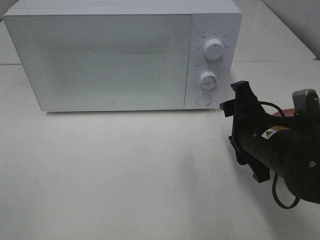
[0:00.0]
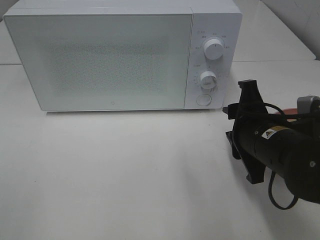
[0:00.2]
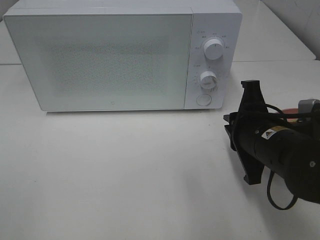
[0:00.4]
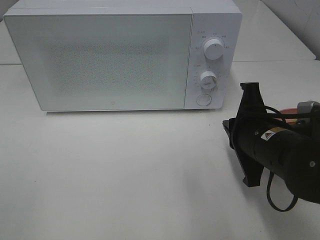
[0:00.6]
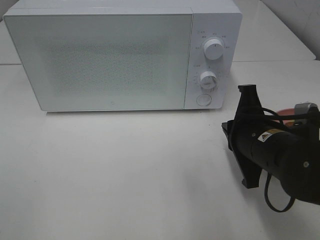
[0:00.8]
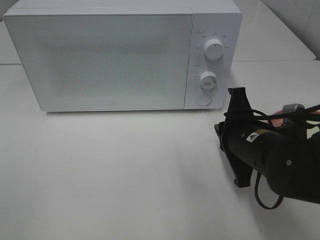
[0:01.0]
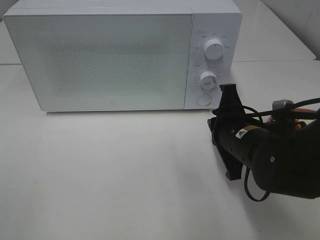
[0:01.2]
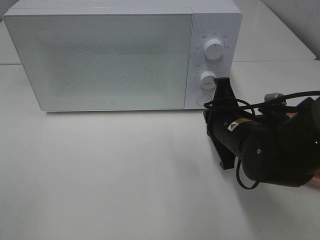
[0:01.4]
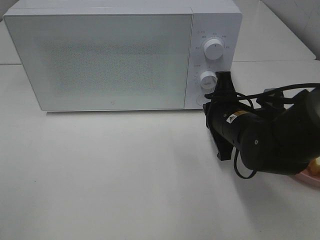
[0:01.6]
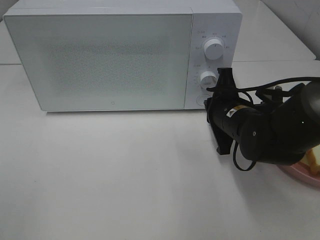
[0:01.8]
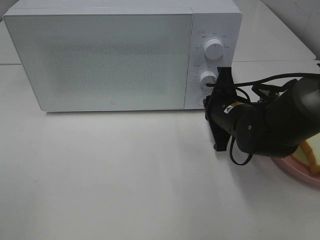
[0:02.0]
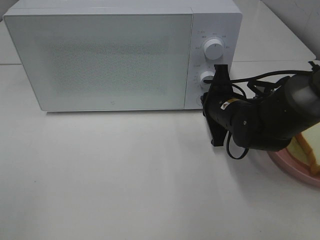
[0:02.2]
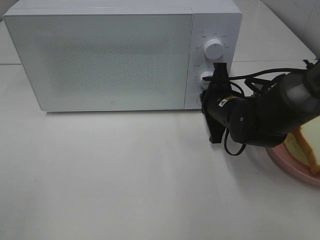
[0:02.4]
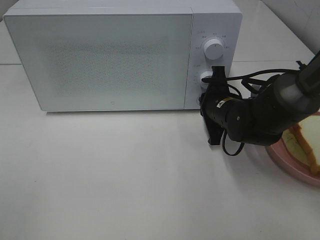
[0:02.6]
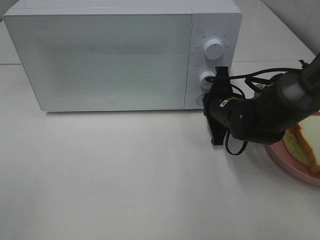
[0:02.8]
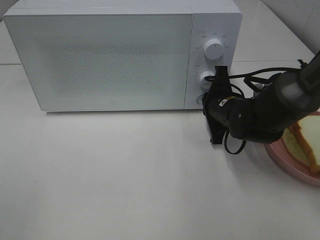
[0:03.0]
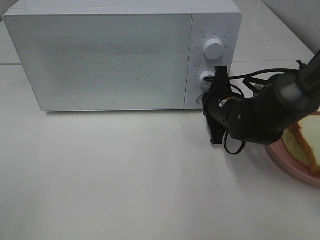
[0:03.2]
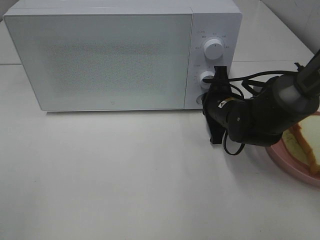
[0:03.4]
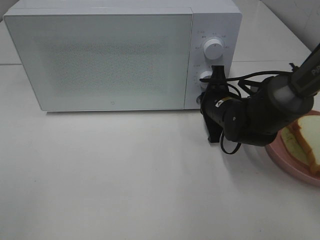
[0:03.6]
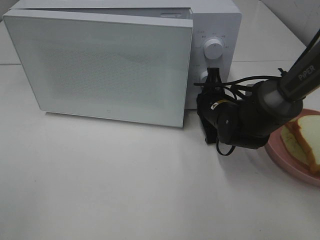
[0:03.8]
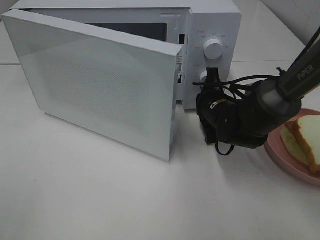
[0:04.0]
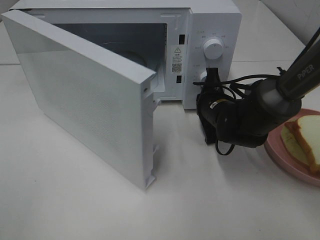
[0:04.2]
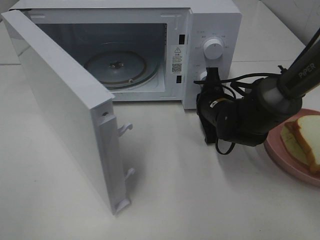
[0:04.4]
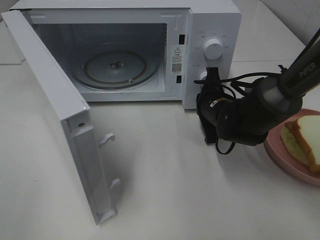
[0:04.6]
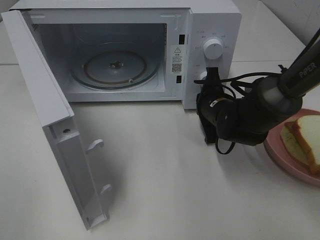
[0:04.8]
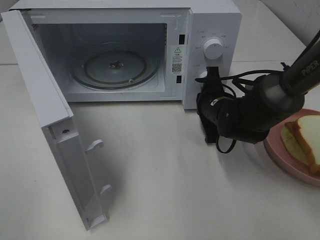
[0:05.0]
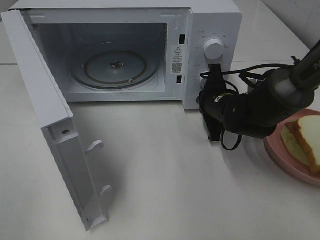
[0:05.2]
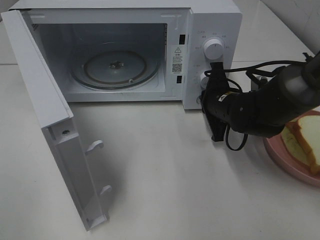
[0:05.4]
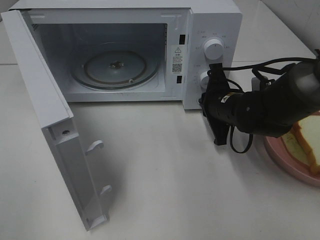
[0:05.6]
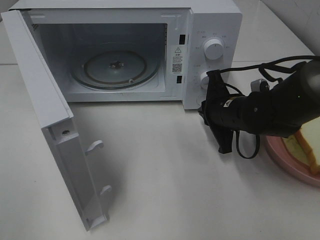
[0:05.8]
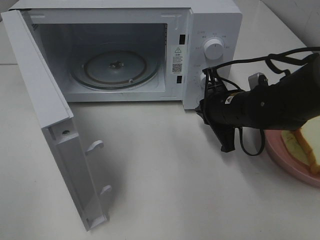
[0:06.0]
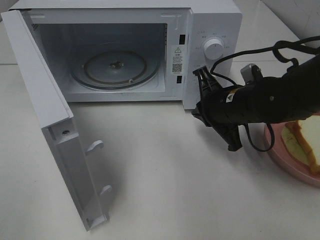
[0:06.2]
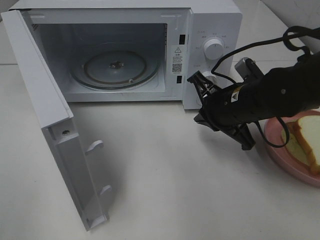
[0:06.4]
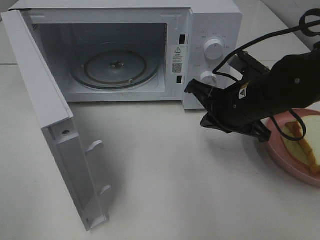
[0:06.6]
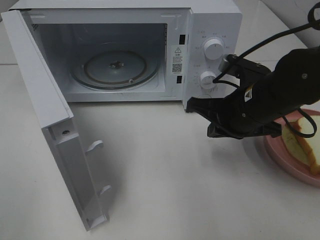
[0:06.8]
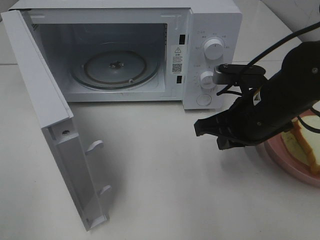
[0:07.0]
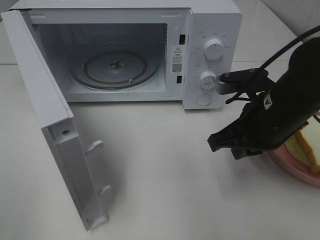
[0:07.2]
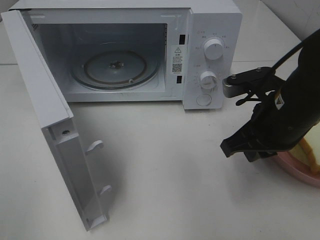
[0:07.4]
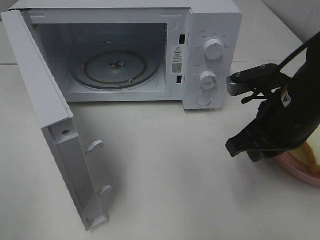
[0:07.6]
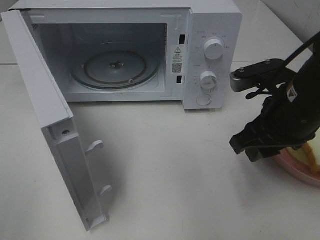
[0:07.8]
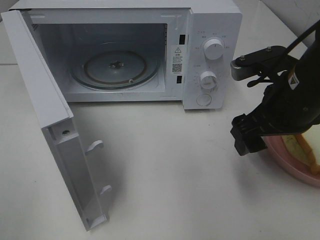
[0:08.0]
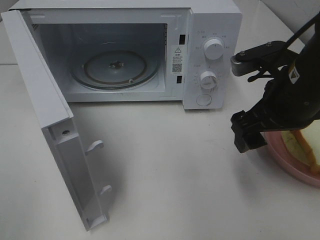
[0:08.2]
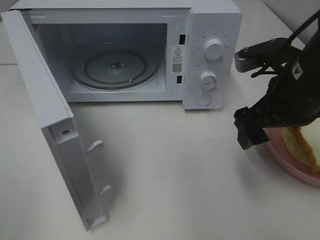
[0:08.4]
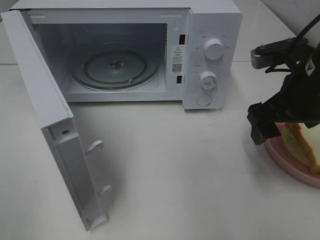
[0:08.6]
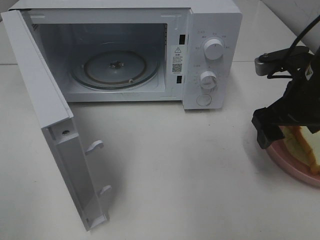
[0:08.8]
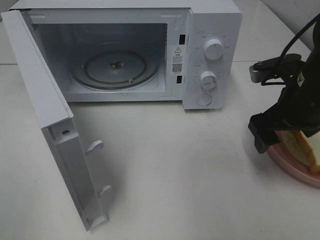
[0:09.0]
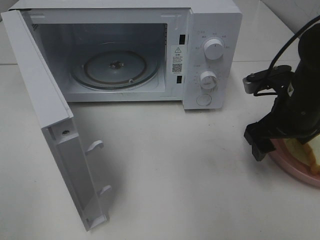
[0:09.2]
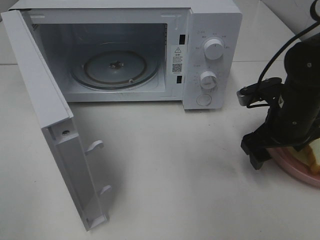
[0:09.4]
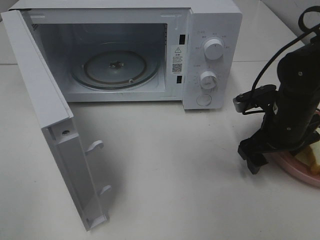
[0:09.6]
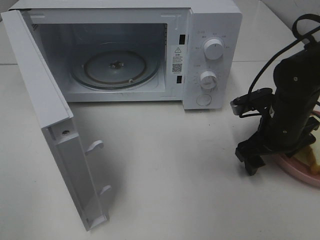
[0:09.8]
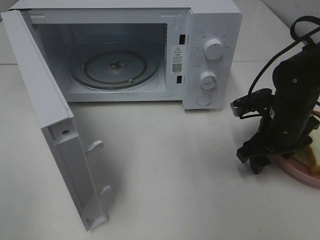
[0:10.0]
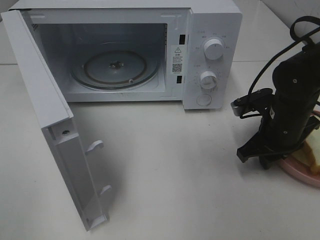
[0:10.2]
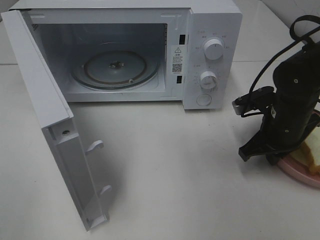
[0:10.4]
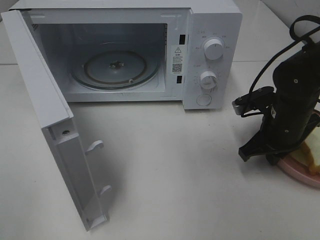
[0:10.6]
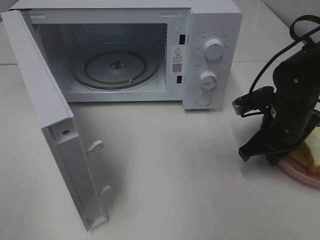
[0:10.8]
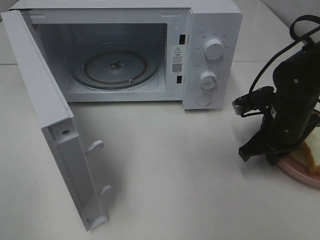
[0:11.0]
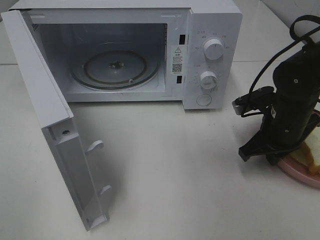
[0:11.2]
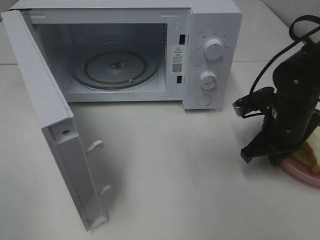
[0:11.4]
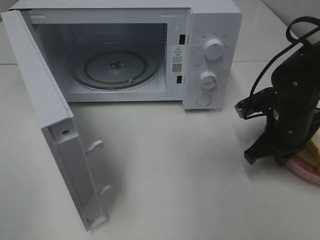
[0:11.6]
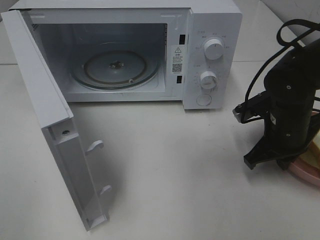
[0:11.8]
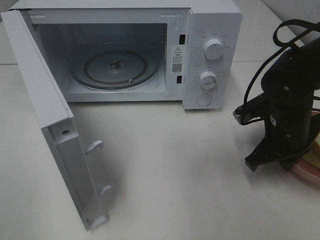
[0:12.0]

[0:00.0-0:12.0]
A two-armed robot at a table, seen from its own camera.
Task of the whole recording: Heat Sandwich.
Step, 0:00.0 to 0:05.4: Right hand: press the switch.
Step, 0:05.6 to 0:10.8: Right hand: grab the plate with the sandwich.
0:00.0 to 0:01.6: The right gripper heads forward, covering some 5 cm, and closes.
0:01.6 to 0:03.0: The right gripper is displaced forward by some 5 cm.
0:04.4 to 0:06.0: The right gripper moves about 5 cm.
0:06.0 to 0:07.6: The right gripper is displaced backward and upward by approximately 10 cm.
0:07.6 to 0:09.0: The right gripper shifts by some 5 cm, and opens its fingers.
0:09.0 to 0:10.4: The right gripper is displaced downward by about 5 cm, and closes.
0:10.4 to 0:12.0: The grippers stay close to where they were, moving slightly.

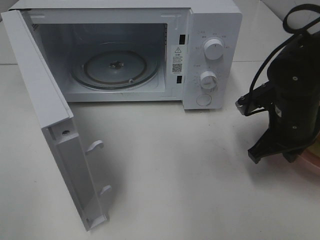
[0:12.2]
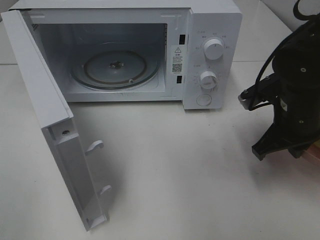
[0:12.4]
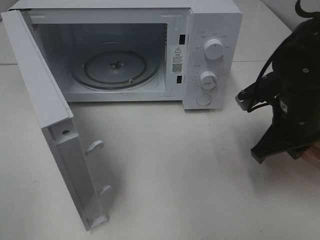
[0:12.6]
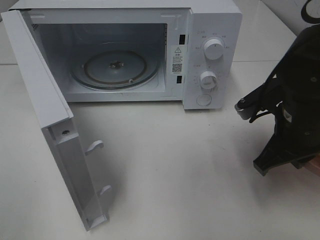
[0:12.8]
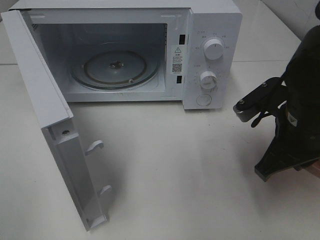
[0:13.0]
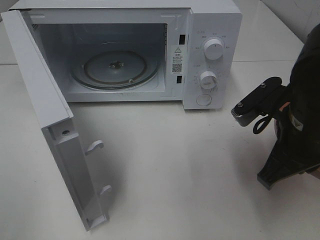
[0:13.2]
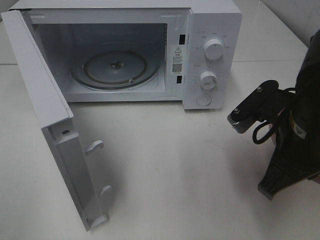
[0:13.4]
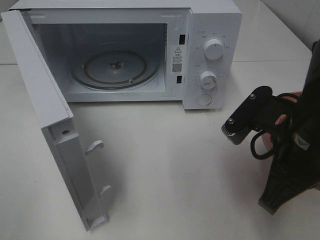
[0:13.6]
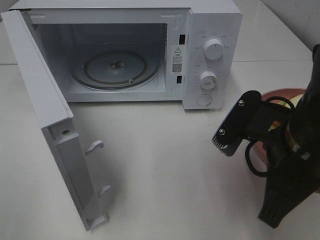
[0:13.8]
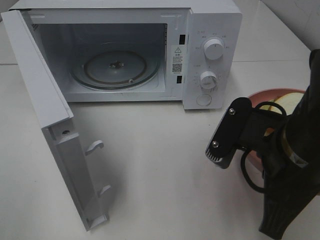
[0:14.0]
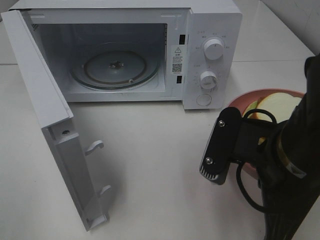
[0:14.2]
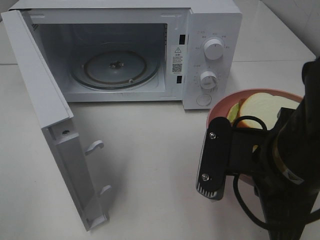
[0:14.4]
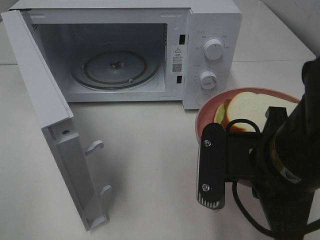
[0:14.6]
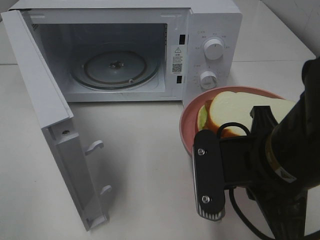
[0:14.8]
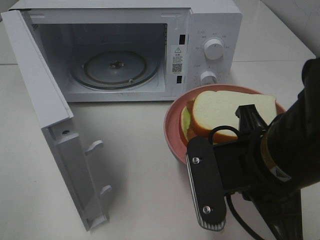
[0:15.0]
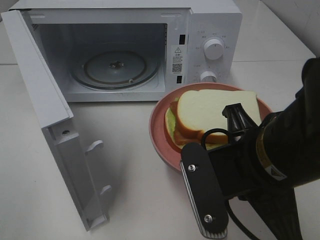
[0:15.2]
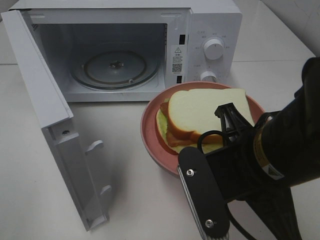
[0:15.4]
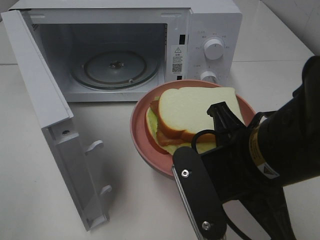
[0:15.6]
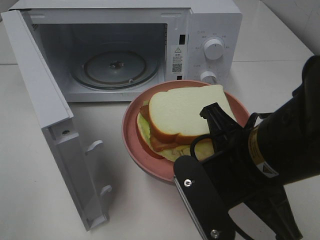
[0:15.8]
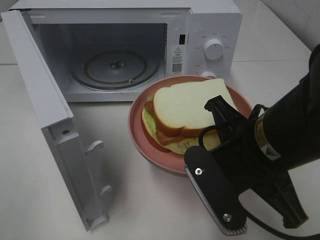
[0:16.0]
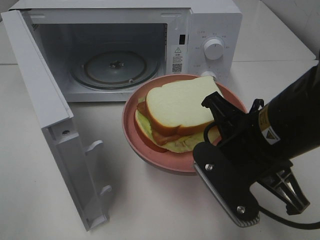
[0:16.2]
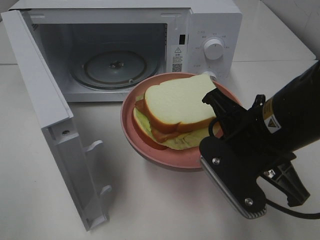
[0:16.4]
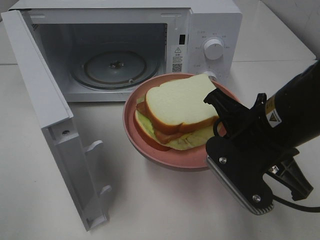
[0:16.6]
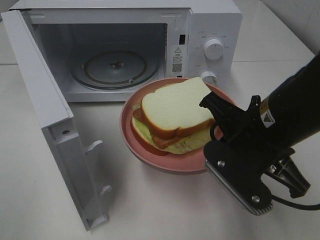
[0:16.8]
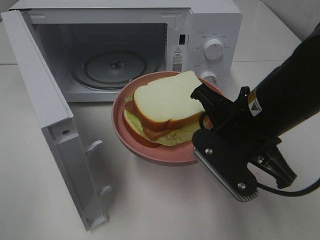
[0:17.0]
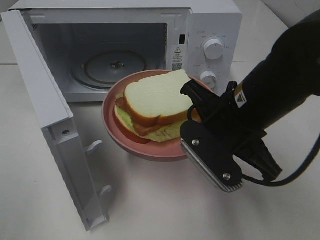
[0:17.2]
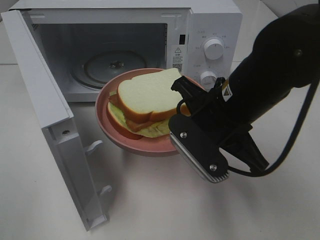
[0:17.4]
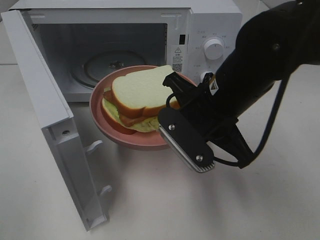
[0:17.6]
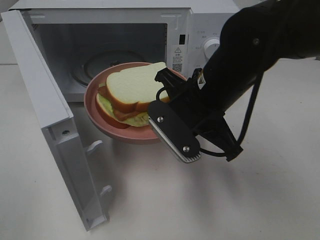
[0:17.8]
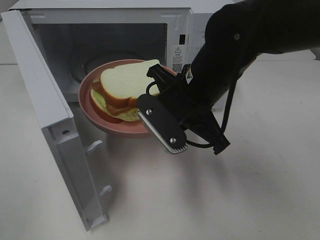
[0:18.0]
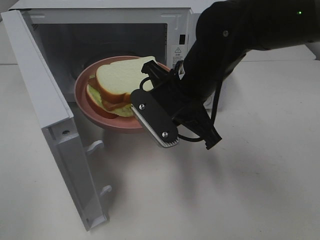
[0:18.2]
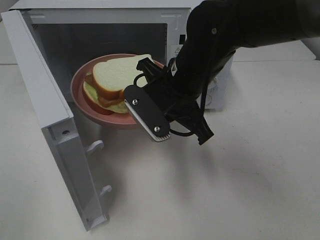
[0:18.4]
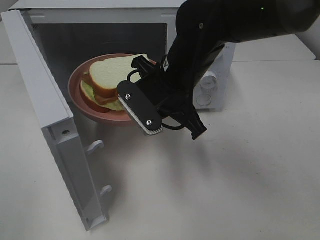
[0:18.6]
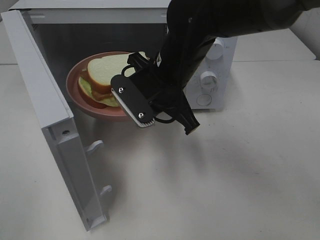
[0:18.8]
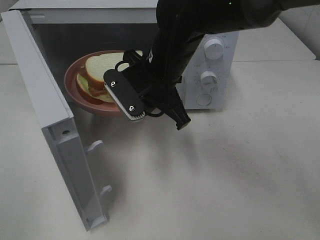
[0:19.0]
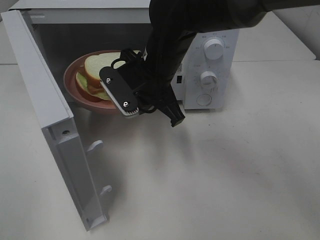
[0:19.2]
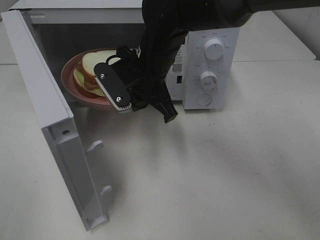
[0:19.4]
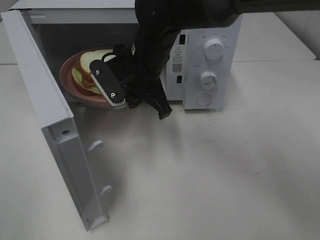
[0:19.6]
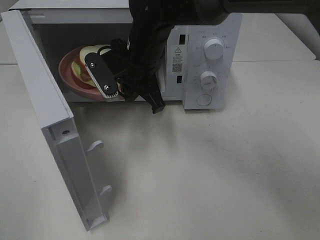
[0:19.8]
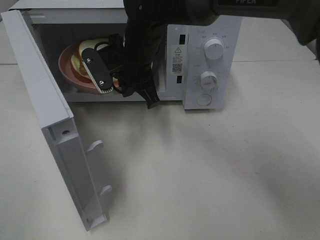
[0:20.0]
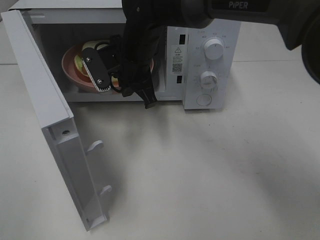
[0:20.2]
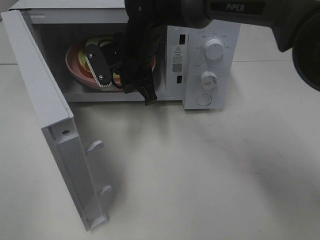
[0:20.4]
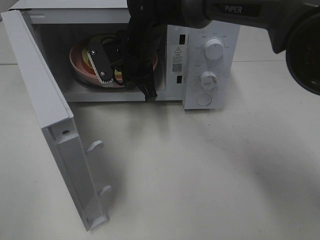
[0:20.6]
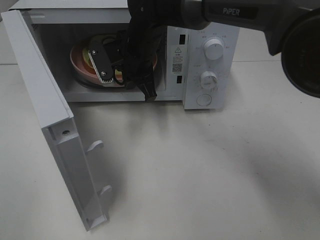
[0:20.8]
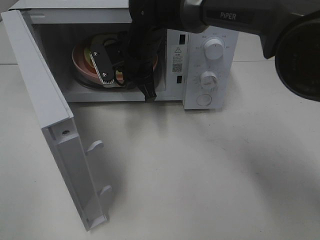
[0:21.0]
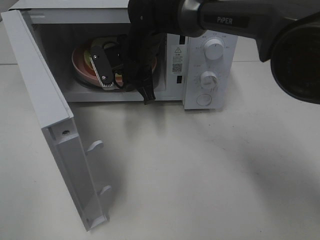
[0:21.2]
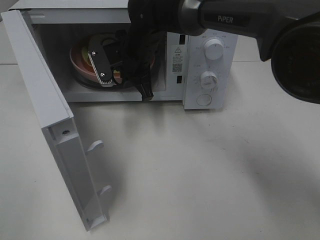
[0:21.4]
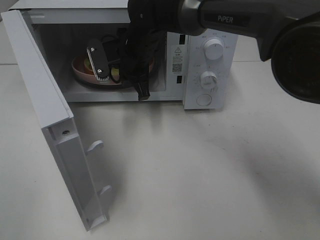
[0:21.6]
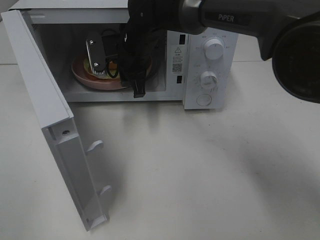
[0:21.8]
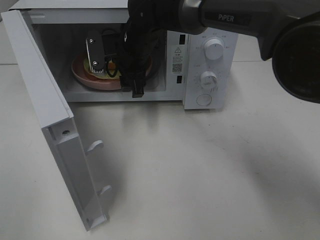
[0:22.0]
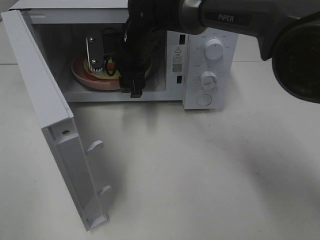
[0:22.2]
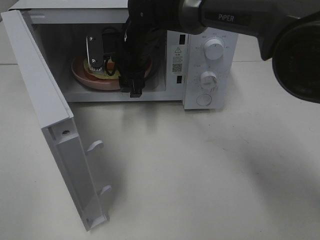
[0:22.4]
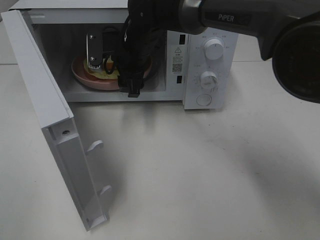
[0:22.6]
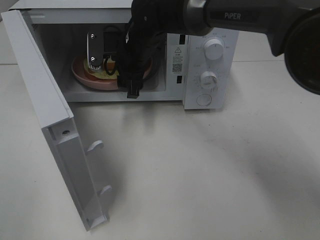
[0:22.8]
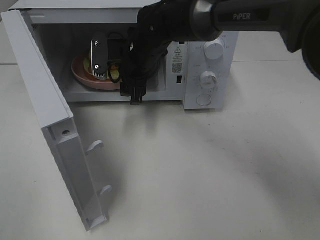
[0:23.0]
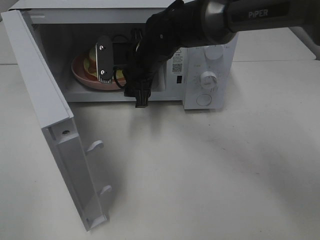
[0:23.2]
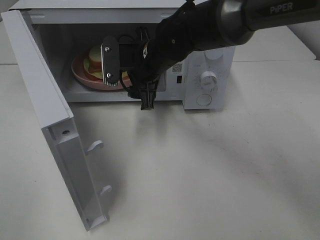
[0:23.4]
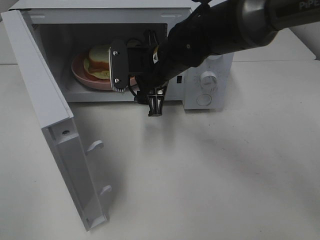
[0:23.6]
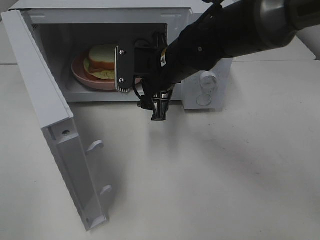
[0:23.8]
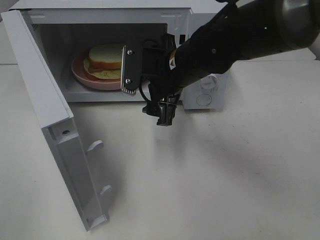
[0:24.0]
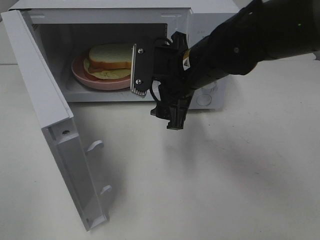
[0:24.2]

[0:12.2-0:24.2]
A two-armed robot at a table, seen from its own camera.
Task of the whole recording: Heat Sandwich.
Step, 0:12.2 to 0:23.0: Right hand: place the plate in the microwave.
0:12.2 to 0:13.8: The right gripper goes some 15 cm backward, upward and to the left.
0:15.2 to 0:16.6: The right gripper heads forward, covering approximately 5 cm.
0:16.6 to 0:18.2: The right gripper travels forward and to the left by approximately 10 cm.
0:18.2 to 0:19.8: The right gripper heads forward and to the left, covering about 10 cm.
0:19.8 to 0:21.2: The right gripper shifts approximately 5 cm forward.
0:21.2 to 0:22.6: The right gripper opens up.
0:22.6 to 0:24.2: The right gripper goes roughly 15 cm backward and to the right.
